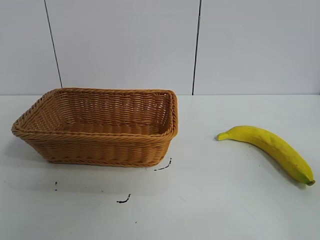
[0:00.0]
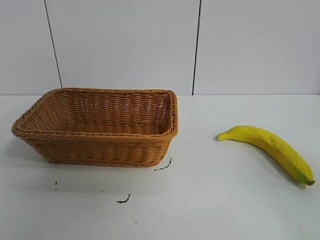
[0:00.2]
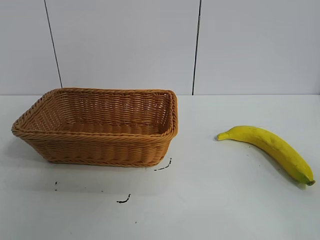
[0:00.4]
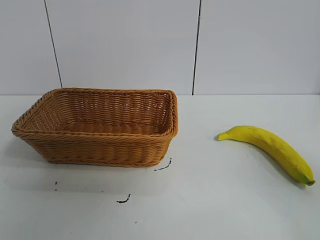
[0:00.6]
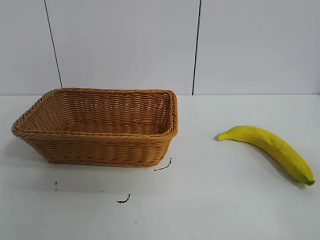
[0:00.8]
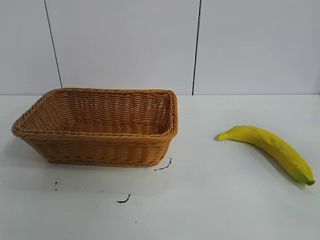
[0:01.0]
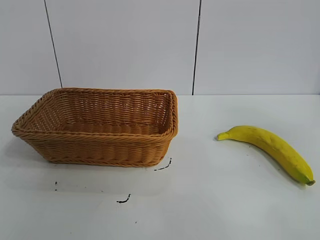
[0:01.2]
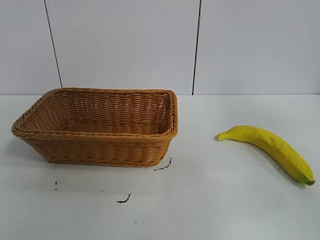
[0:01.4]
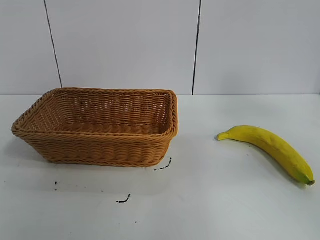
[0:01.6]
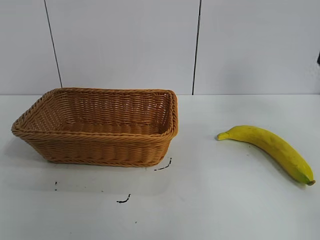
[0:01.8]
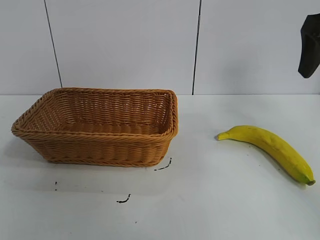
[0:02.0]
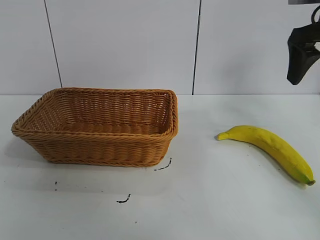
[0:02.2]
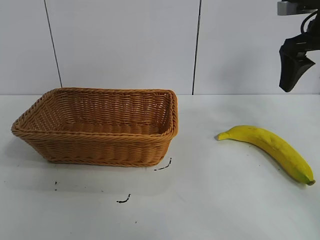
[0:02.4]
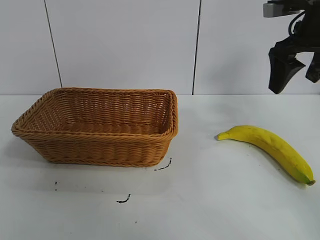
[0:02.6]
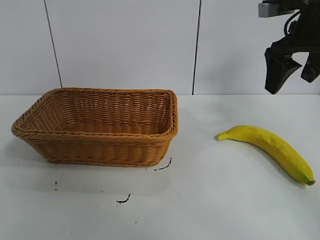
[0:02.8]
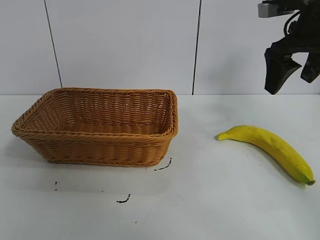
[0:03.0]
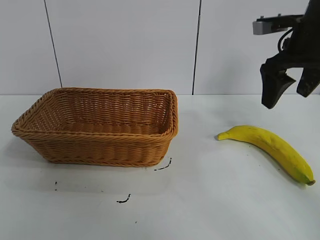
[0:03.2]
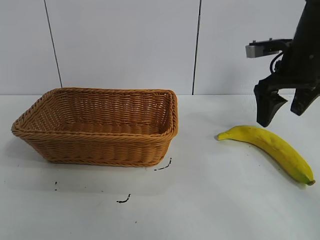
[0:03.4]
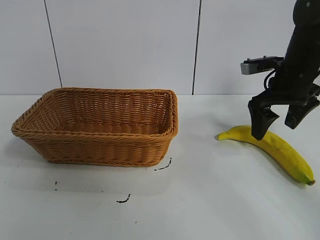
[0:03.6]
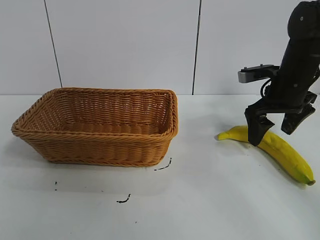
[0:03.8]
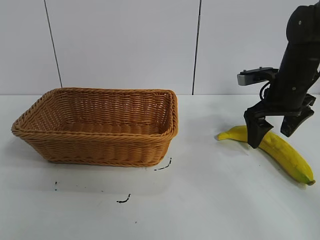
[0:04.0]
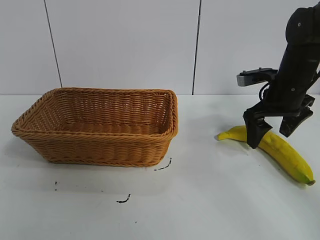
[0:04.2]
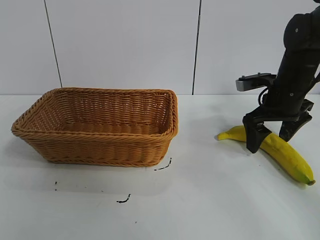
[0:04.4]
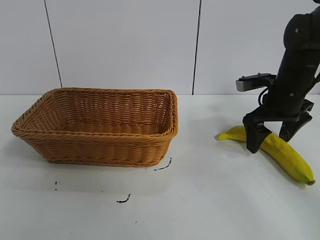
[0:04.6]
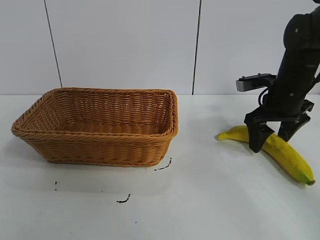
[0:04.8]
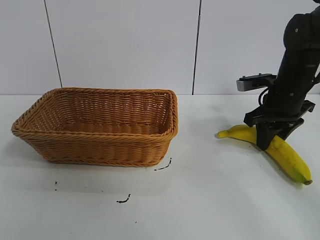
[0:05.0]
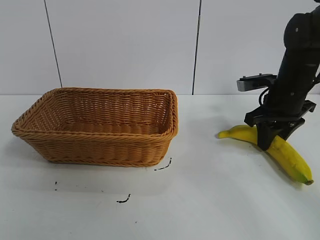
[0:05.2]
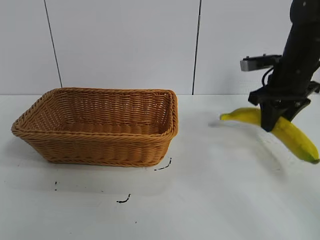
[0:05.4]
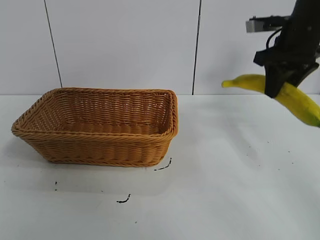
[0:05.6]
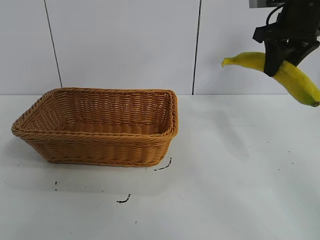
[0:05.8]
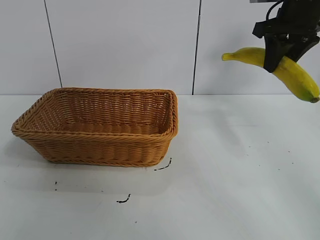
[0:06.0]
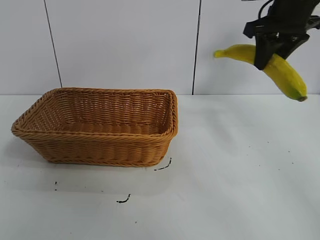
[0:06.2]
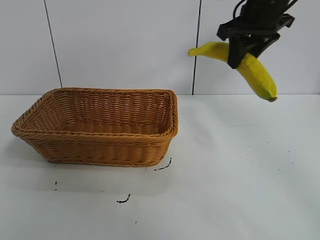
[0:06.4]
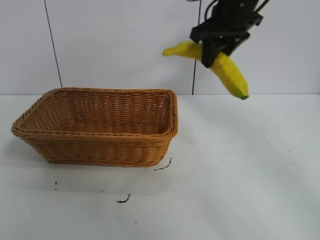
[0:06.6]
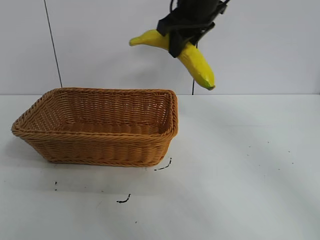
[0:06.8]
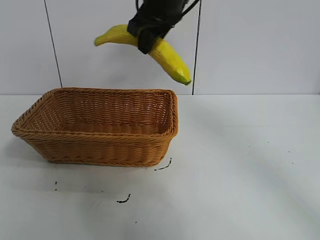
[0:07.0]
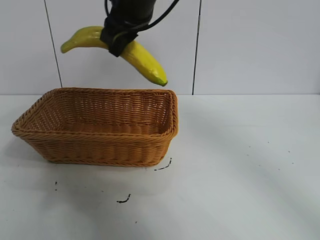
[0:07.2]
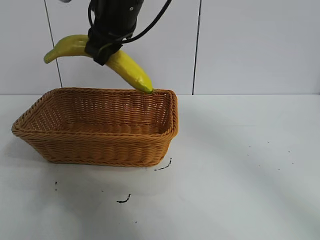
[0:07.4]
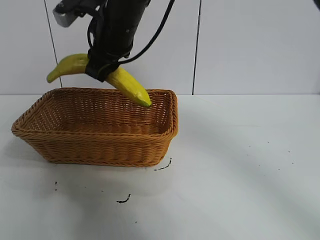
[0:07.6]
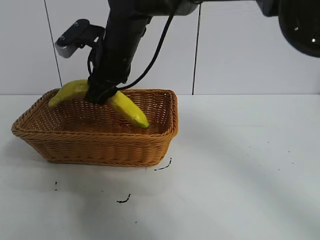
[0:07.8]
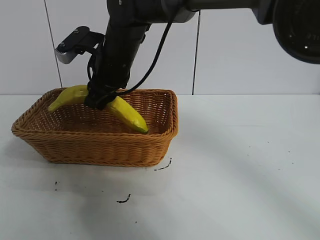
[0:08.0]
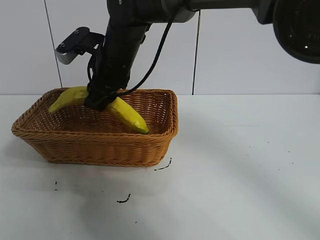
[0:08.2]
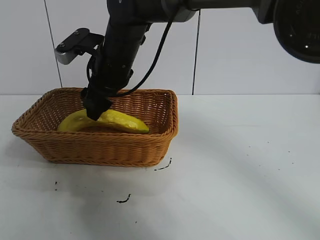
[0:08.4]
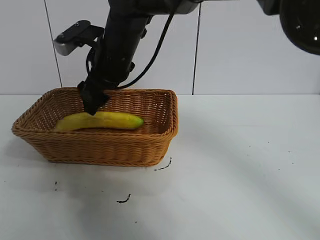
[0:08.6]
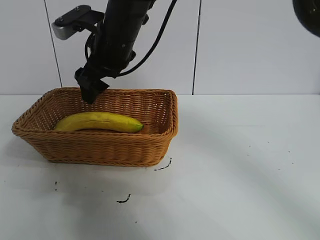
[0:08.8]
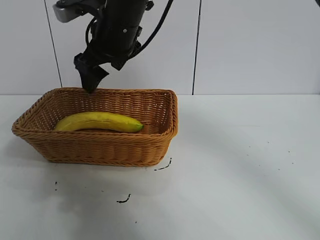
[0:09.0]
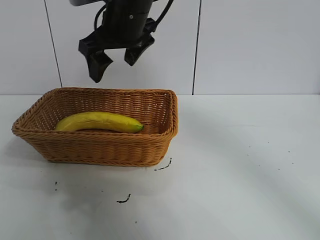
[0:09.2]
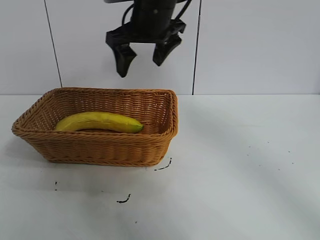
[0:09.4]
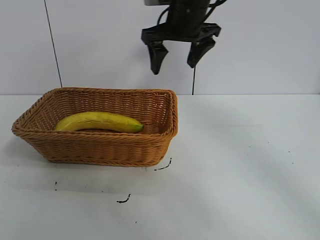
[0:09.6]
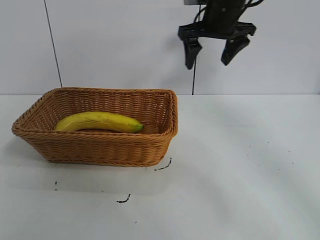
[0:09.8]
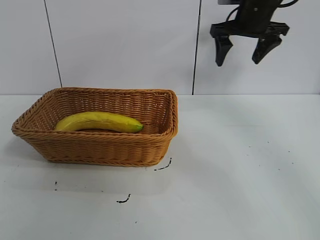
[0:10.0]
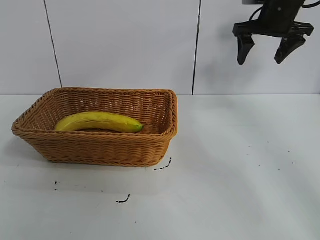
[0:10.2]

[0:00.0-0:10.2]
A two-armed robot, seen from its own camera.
Task of the whole recording: pick up the banana and put it into the basket.
Step, 0:00.8 to 0:05.0: Grasp the banana with right gripper.
Step, 0:05.4 to 0:08.6: Place the banana in the basket with right gripper.
